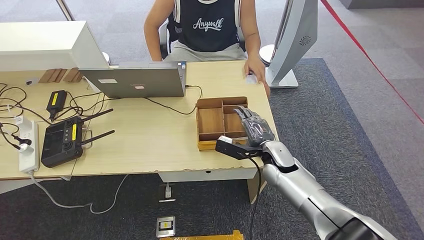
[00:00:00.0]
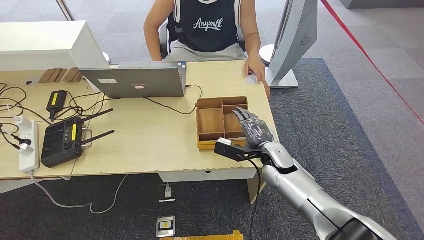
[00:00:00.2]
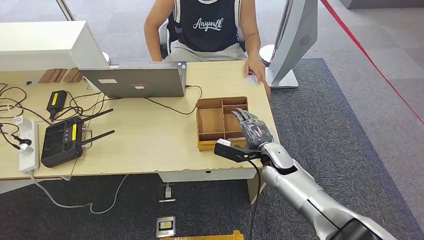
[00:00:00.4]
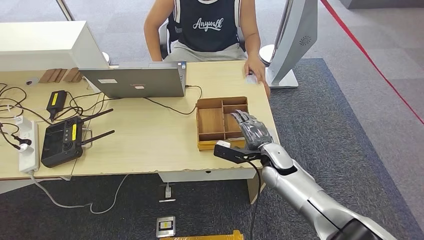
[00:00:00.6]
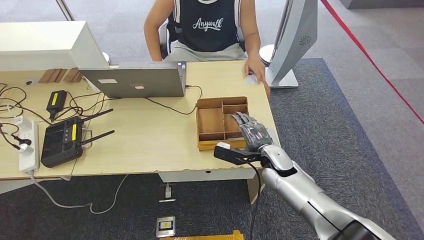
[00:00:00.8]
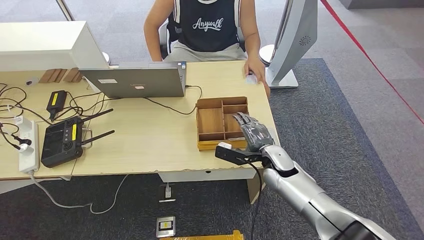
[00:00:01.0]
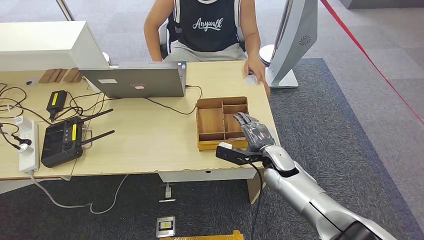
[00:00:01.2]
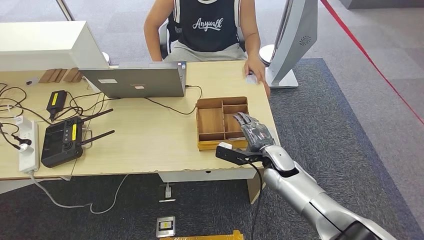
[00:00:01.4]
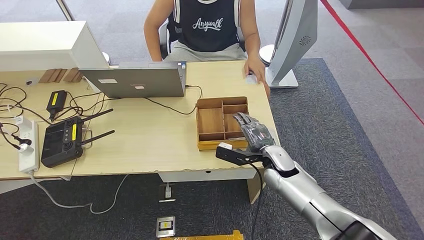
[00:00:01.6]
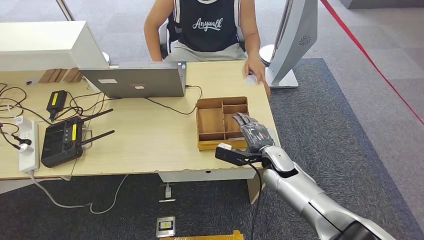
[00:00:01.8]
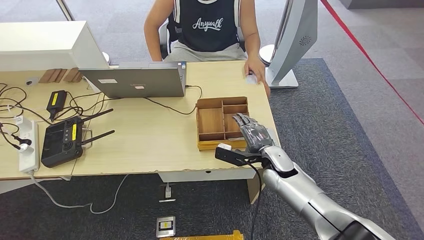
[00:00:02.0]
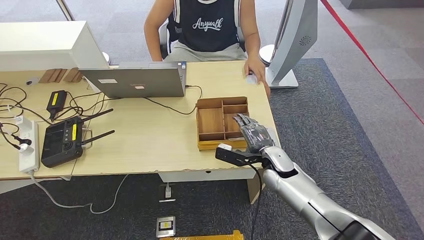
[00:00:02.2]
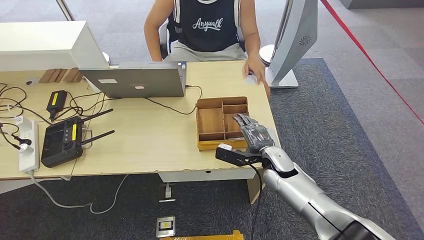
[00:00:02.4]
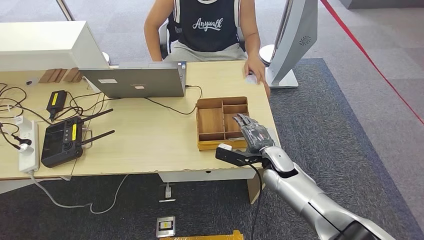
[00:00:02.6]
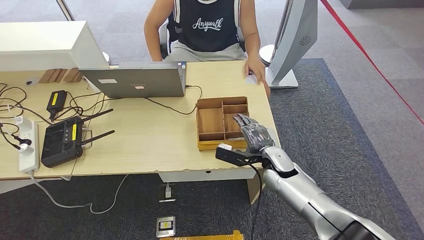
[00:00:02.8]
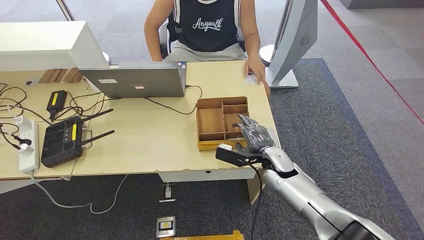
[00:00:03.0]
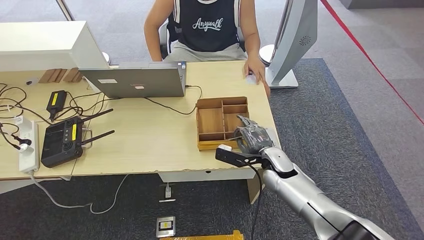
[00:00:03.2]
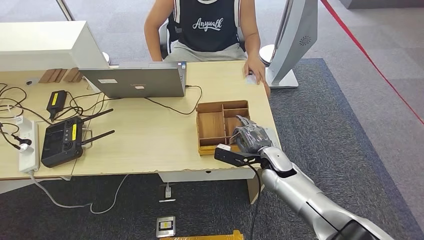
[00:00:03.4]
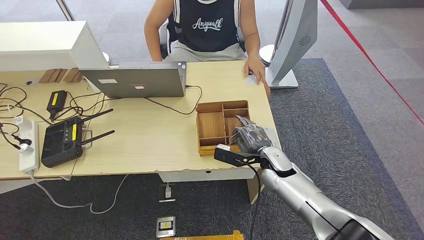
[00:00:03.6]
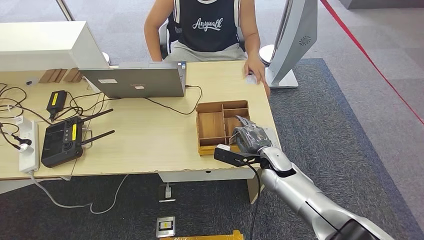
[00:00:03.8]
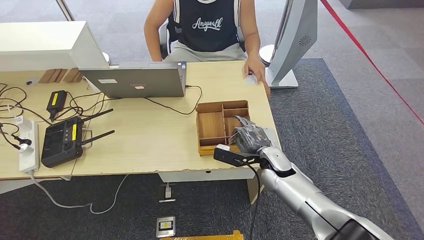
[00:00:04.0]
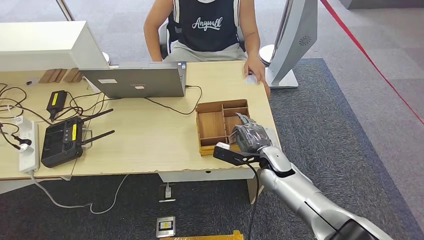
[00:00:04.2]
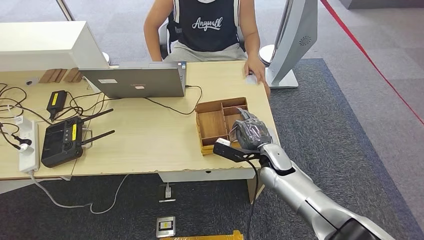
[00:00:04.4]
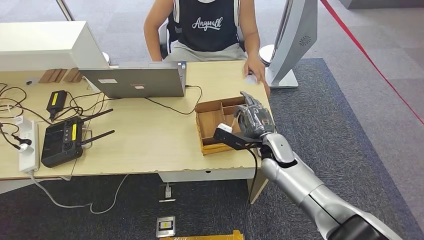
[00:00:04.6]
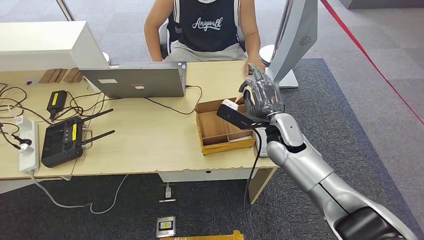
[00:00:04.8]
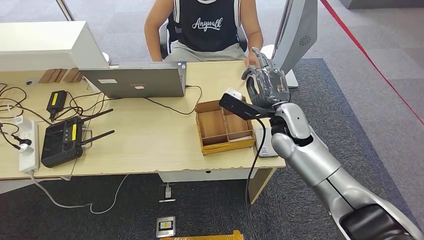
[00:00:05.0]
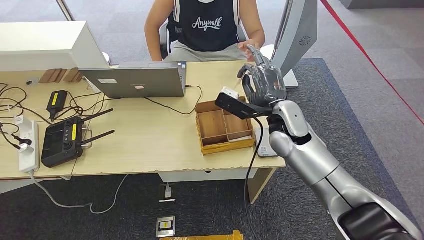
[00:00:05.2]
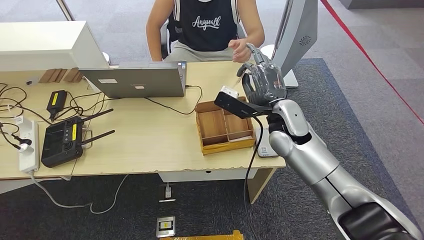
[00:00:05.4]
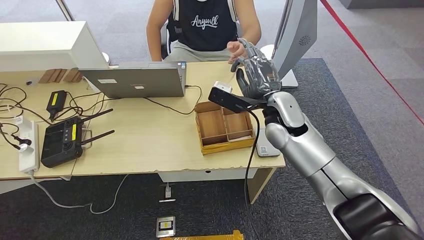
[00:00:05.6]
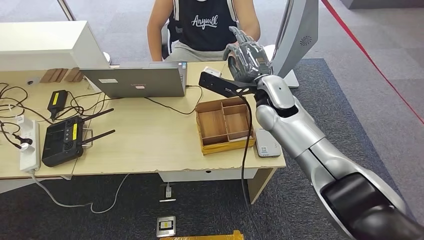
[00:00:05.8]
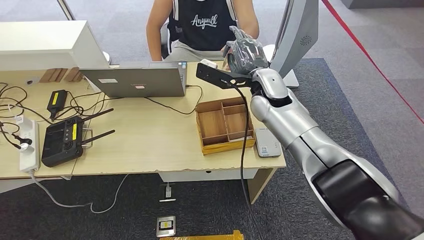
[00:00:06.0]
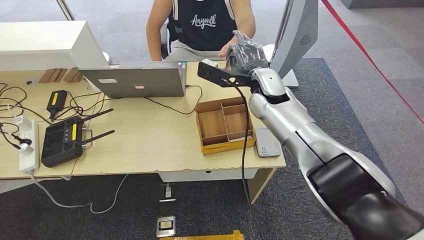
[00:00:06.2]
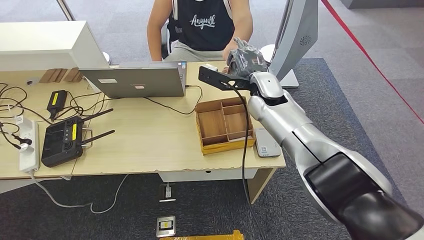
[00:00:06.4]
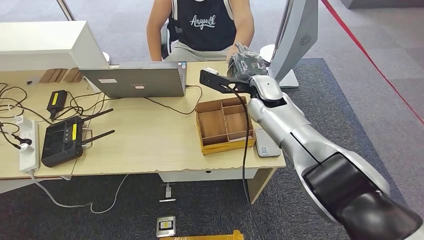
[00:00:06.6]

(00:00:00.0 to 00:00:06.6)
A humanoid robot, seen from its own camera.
Step, 00:00:00.0 - 00:00:03.6: Pick up the room key from the key card box.
Step, 00:00:03.8 - 00:00:06.4: Hand the room key to the person.
00:00:00.0 - 00:00:01.6: Both hands stay about where they are.
00:00:01.6 - 00:00:03.2: Both hands stay about where they are.
00:00:03.2 - 00:00:05.0: The right hand heads upward, covering some 15 cm.
00:00:05.0 - 00:00:06.6: The right hand is displaced forward by approximately 10 cm.
